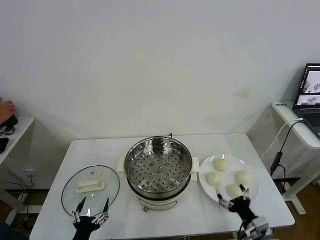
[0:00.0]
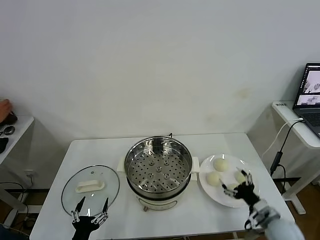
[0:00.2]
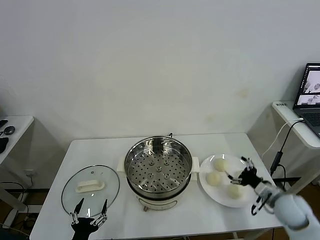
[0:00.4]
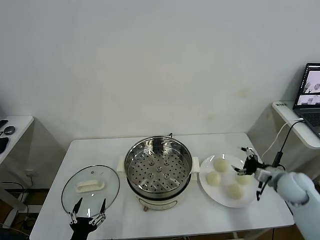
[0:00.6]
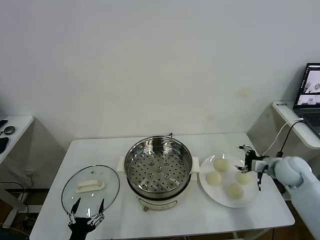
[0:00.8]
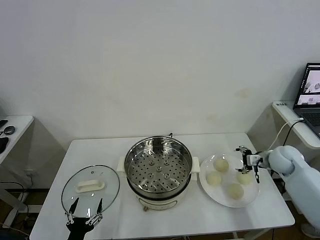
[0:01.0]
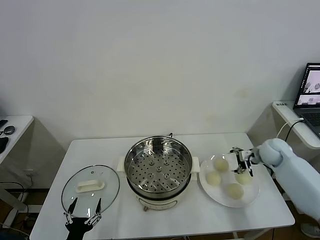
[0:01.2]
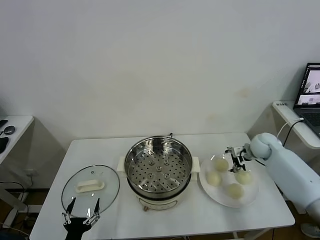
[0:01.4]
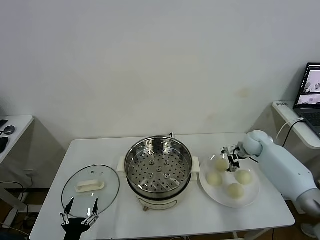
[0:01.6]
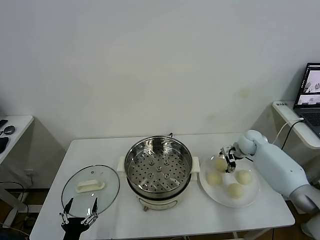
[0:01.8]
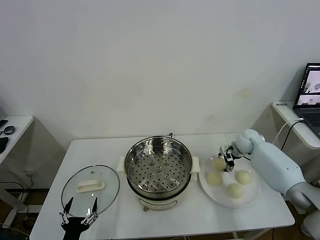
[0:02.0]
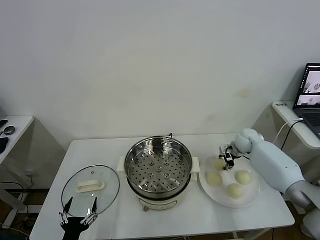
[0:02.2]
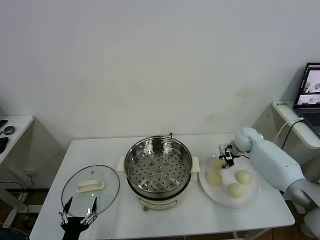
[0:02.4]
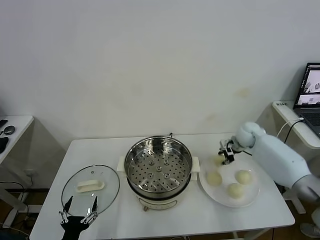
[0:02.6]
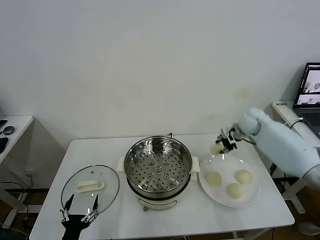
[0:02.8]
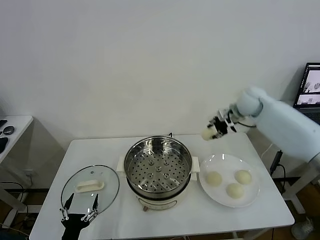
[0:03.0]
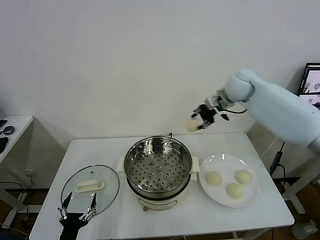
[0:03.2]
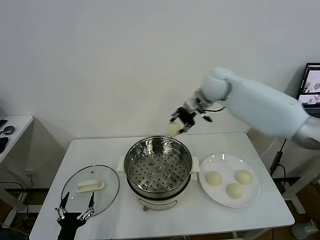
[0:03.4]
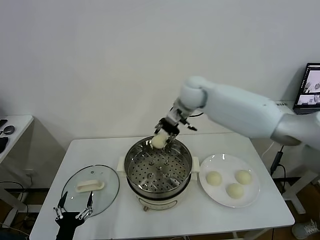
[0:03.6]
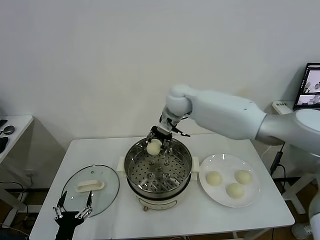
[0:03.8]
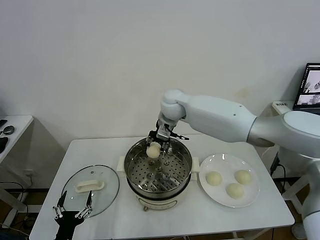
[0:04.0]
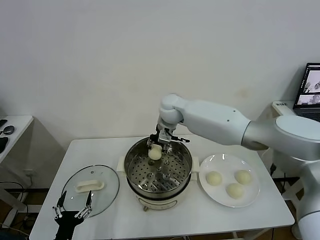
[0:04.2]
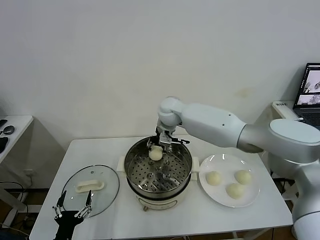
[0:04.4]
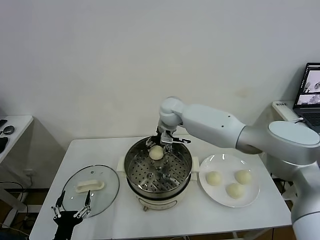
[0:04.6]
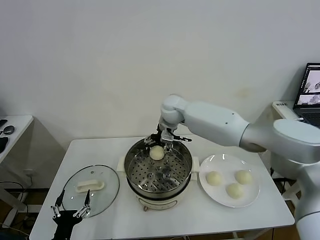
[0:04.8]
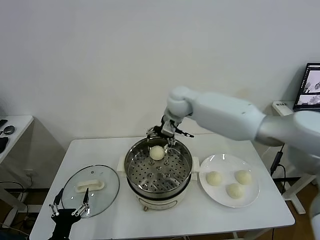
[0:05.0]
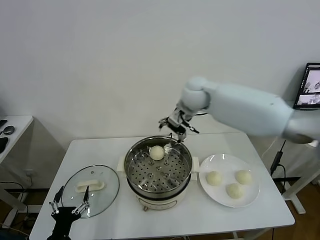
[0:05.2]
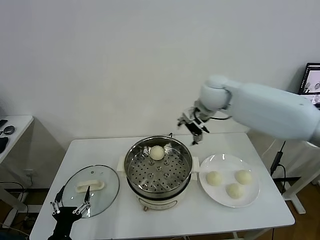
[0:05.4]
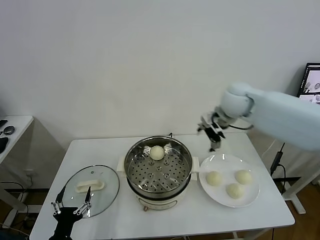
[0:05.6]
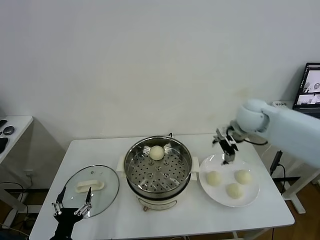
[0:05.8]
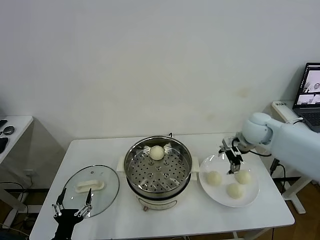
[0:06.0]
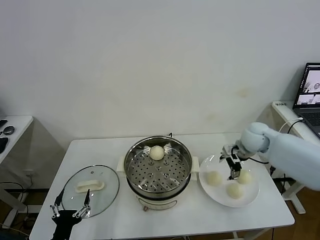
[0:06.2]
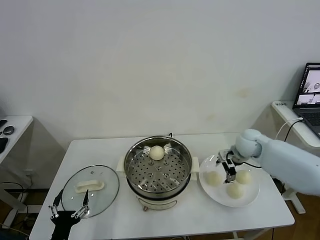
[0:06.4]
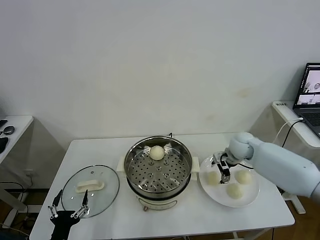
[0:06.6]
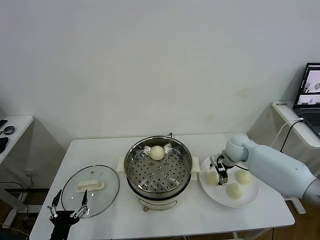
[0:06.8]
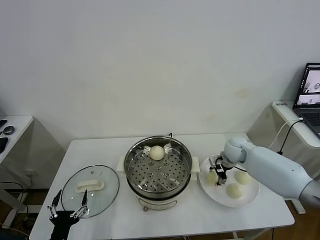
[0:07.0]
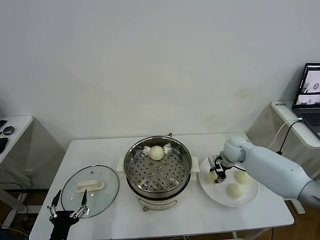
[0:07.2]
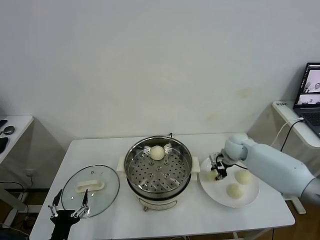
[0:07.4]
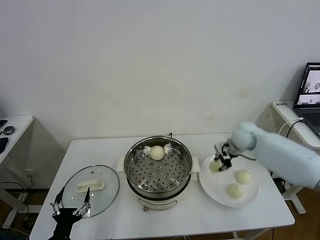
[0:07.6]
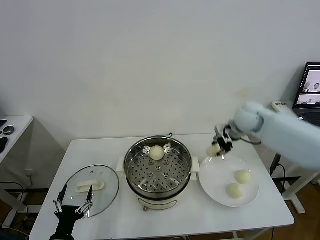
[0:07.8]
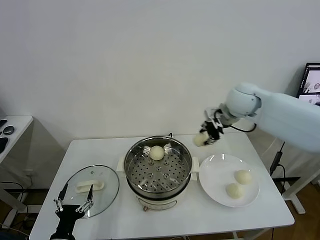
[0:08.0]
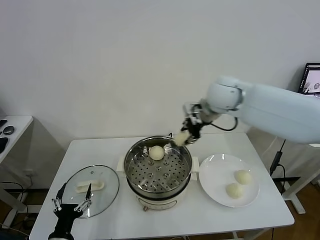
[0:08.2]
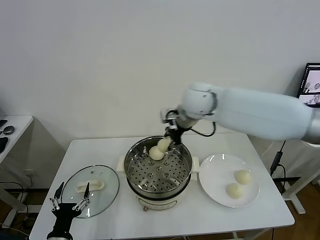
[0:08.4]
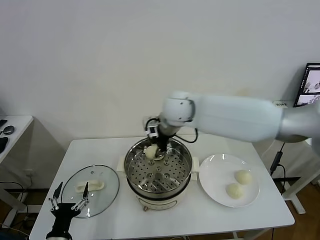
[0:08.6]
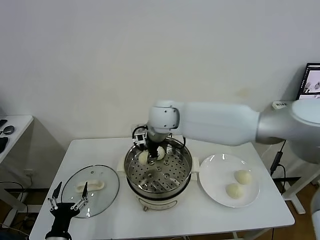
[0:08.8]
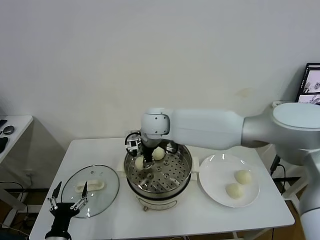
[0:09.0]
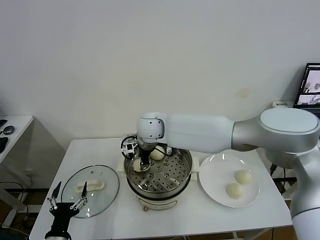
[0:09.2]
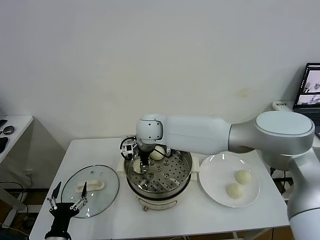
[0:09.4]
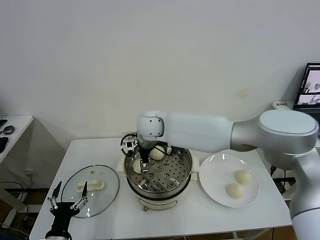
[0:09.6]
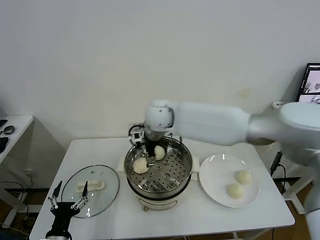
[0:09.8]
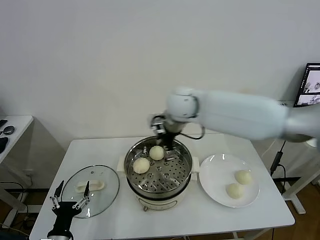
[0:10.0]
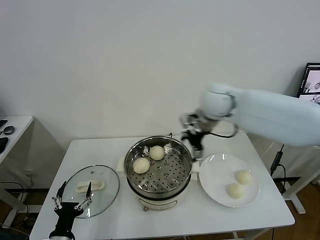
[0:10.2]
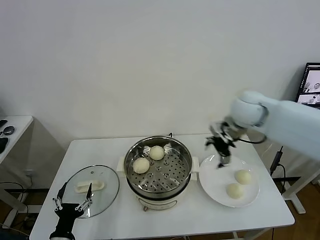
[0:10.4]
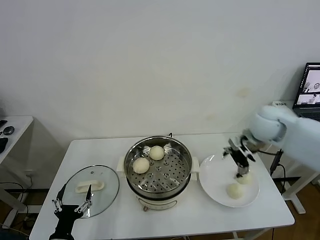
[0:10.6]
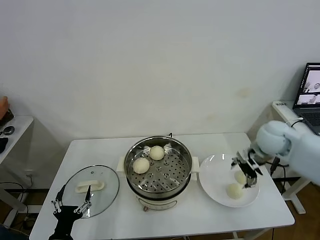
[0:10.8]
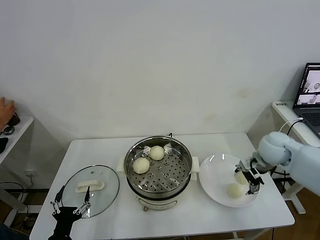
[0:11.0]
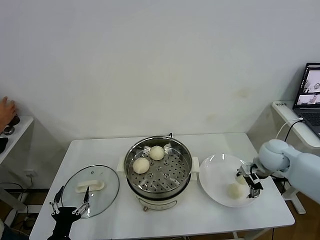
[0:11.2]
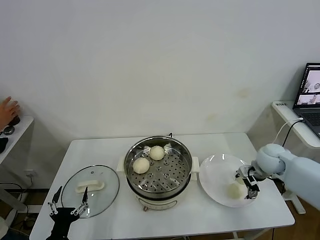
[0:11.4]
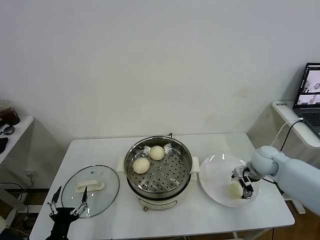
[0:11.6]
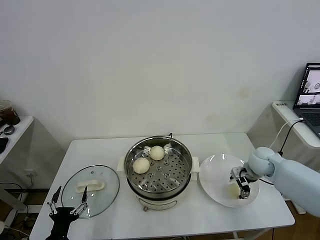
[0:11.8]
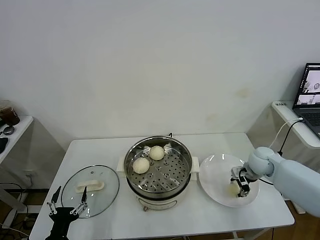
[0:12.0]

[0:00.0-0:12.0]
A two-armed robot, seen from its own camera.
Task of the whole recording: take steamed baozi put them in steamer.
Step, 0:00.0 to 0:02.2: Grasp the baozi in the plate with right gripper.
Step, 0:02.4 to 0:04.8: Place the baozi on the steamer with right gripper.
Step, 0:05.0 to 0:07.2: Grasp the baozi in the plate with right gripper.
Step, 0:07.4 to 0:09.6: Place the baozi on the steamer with right gripper.
0:01.6 to 0:03.0: The right gripper moves upward and to the left, about 20 cm, and closes.
0:03.0 to 0:04.4: The right gripper heads to the left, covering some 25 cm, and opens its fingers.
0:04.4 to 0:06.0: The right gripper travels to the right by about 30 cm, and opens its fingers.
0:06.0 to 0:07.6: The right gripper closes its fingers.
0:07.6 to 0:09.0: The right gripper moves to the left, roughly 30 cm.
0:09.0 to 0:10.4: The right gripper travels to the right by roughly 25 cm, and opens up.
0:10.4 to 0:12.0: The right gripper goes roughly 25 cm downward and to the right, and closes its fingers.

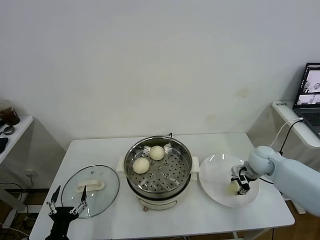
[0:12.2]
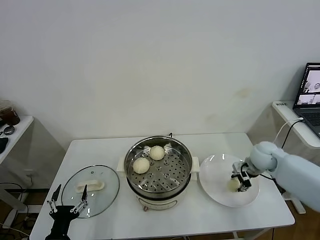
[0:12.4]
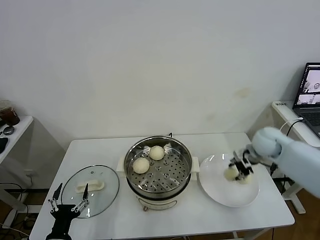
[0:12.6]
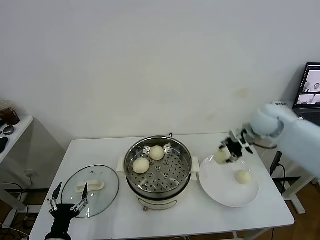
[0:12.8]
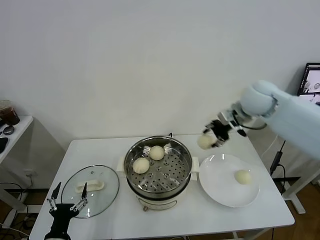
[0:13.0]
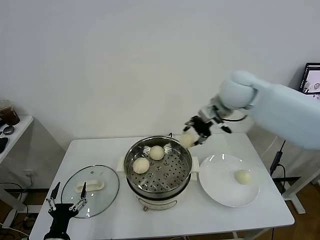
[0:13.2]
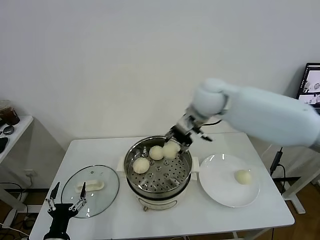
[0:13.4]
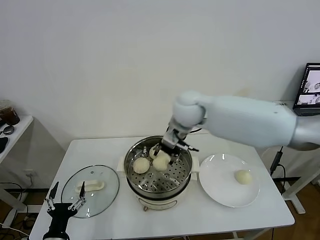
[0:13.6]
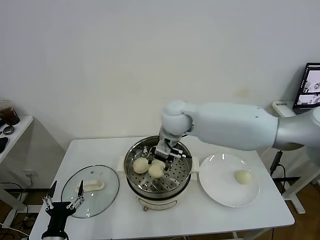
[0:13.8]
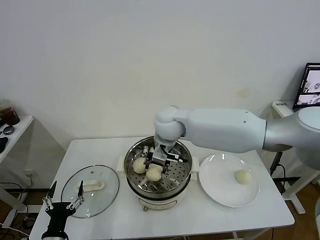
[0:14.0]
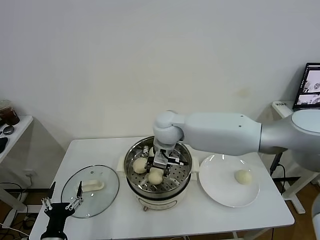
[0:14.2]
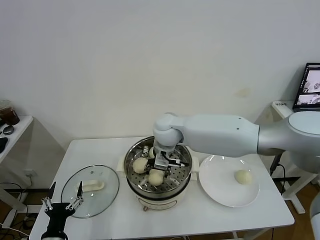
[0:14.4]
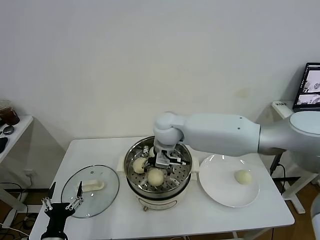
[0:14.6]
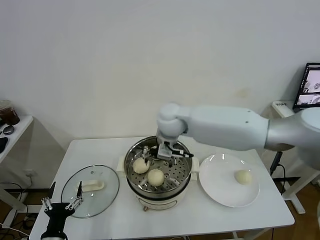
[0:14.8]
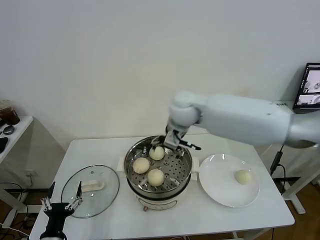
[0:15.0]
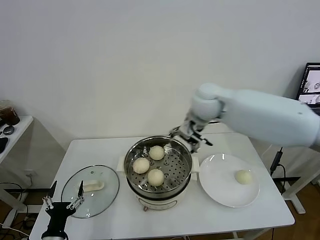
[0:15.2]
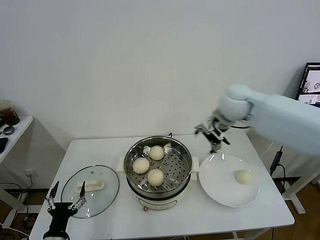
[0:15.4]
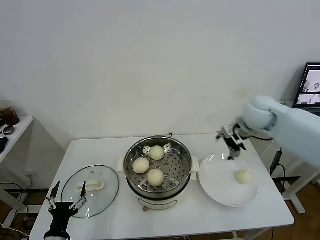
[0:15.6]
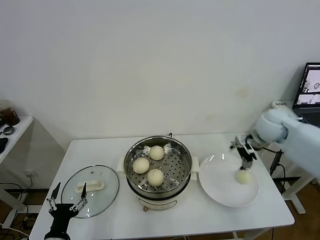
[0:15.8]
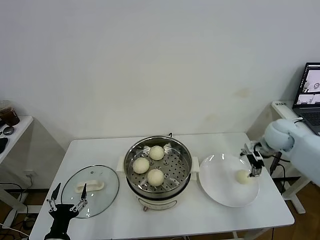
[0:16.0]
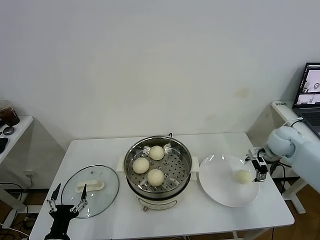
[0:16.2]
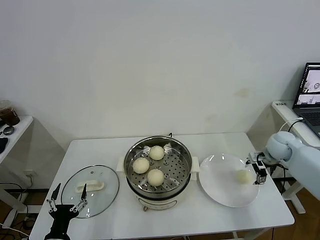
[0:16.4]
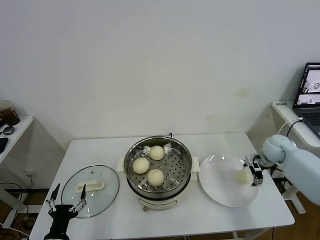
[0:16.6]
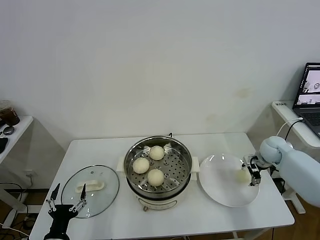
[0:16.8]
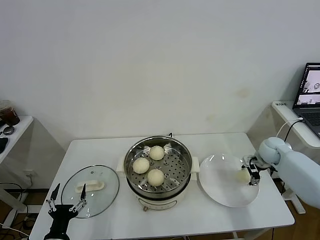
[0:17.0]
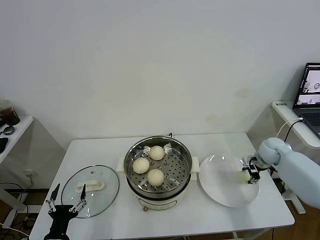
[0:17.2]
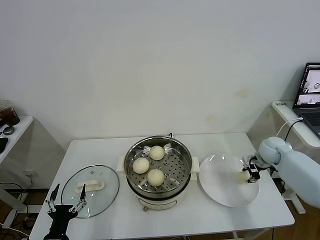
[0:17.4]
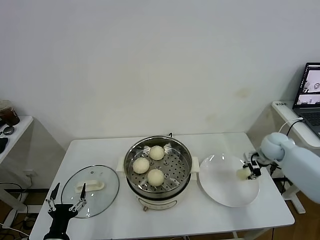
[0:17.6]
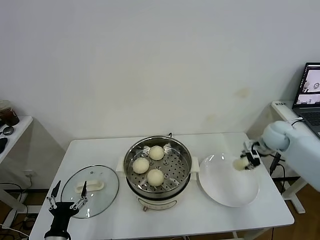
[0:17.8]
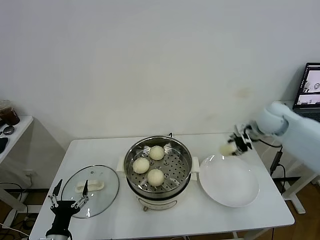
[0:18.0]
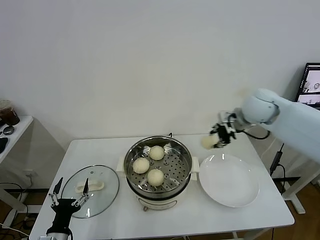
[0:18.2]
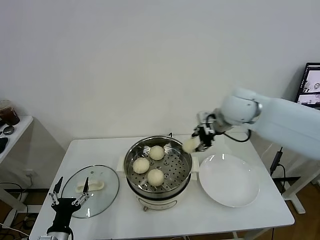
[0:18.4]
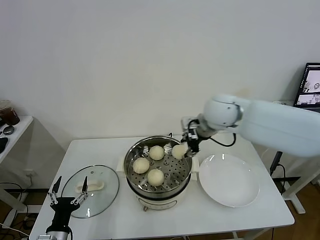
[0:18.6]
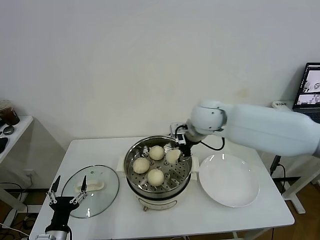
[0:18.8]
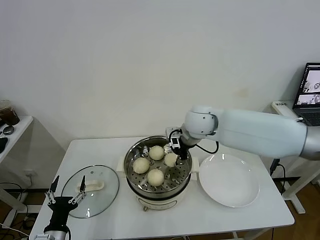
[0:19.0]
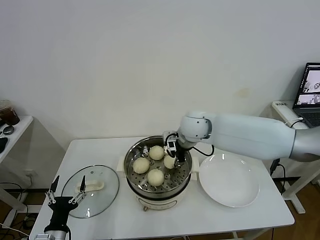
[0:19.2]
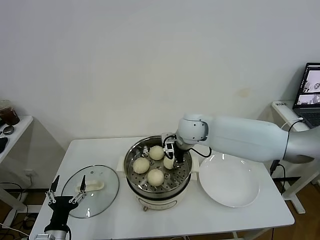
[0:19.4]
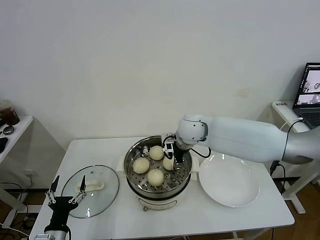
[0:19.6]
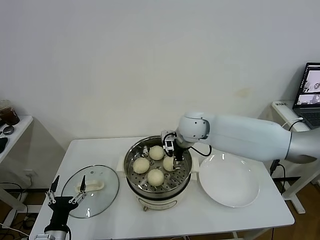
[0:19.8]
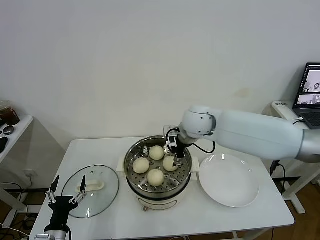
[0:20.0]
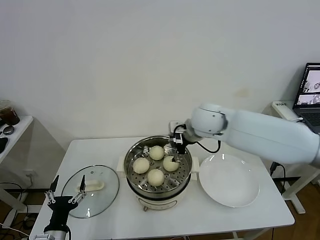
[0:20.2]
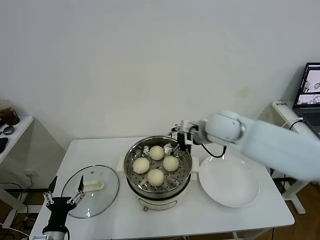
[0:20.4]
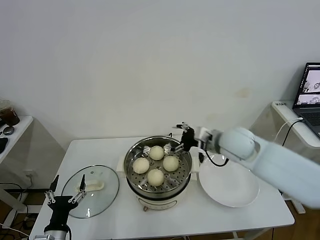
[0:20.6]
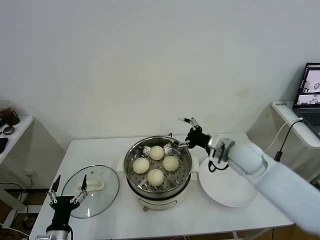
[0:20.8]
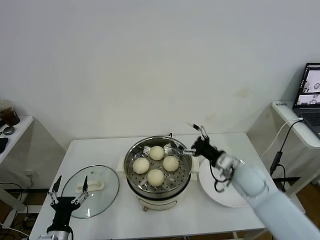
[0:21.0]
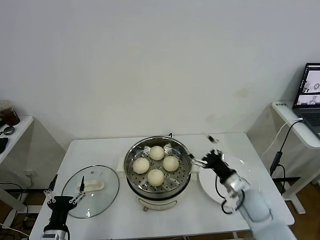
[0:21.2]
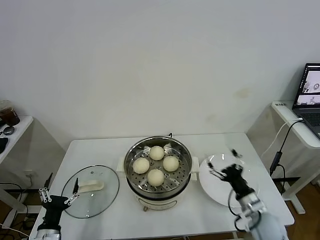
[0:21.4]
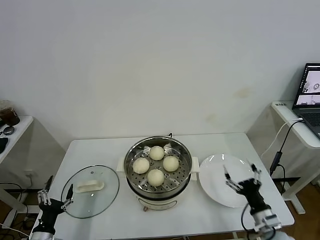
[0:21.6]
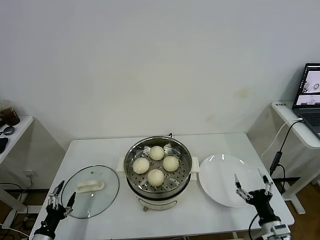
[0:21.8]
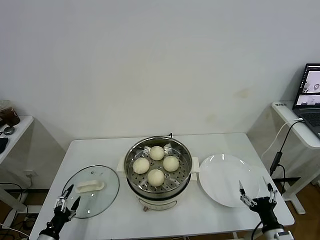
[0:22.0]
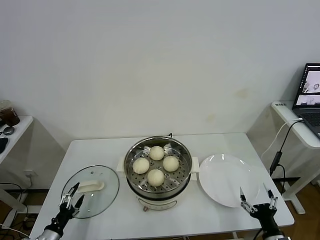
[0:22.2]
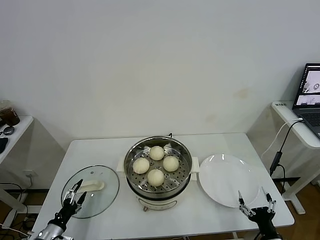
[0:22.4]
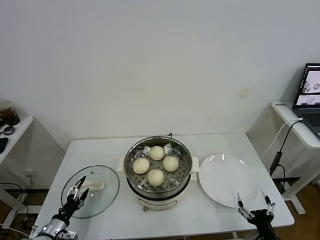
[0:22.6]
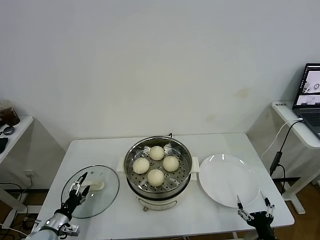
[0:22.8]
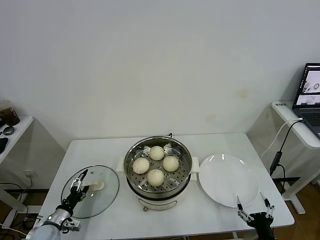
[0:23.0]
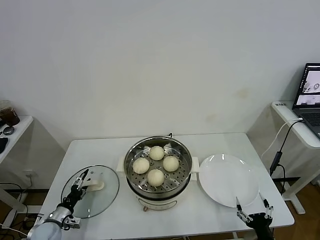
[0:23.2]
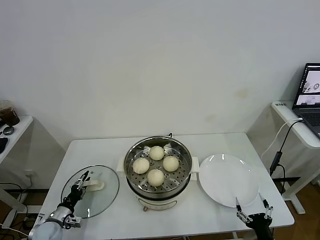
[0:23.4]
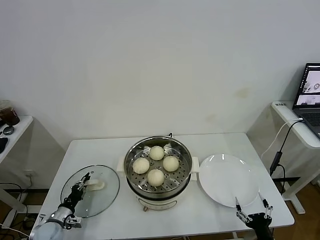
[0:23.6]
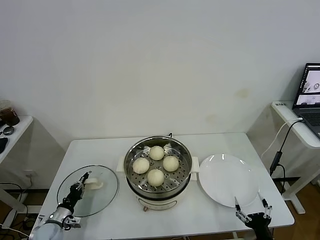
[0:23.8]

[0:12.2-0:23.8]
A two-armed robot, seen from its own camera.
Task of the whole recording: take steamed baozi put them in steamer.
Step, 0:12.4 to 0:14.6: Place the baozi on the steamer with right gripper.
Step, 0:14.8 to 0:17.4: Grasp the baozi in the plate with right gripper.
Step, 0:17.6 to 0:20.0: Place the baozi on the steamer with right gripper.
Step, 0:20.2 to 0:23.8: Grasp the pot lid with left gripper.
0:12.2 to 0:13.6: The right gripper heads to the left and upward, covering some 35 cm.
0:13.6 to 0:15.0: The right gripper opens its fingers.
0:15.0 to 0:16.6: The right gripper heads to the right and downward, covering roughly 40 cm.
0:16.6 to 0:18.0: The right gripper shifts roughly 15 cm upward and to the left, and closes.
0:18.0 to 0:19.4: The right gripper moves to the left, approximately 25 cm.
0:19.4 to 0:21.0: The right gripper shifts about 20 cm to the right, backward and downward, and opens up.
0:21.0 to 0:22.4: The right gripper is displaced backward and downward by some 30 cm. Meanwhile the left gripper heads to the left and downward, covering roughly 10 cm.
0:22.4 to 0:23.8: The left gripper is displaced forward by roughly 10 cm, and closes up.
